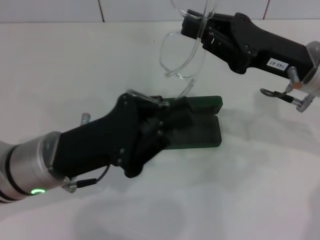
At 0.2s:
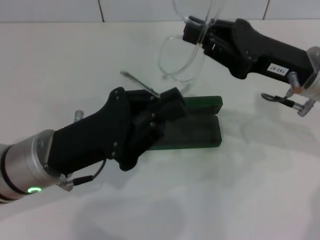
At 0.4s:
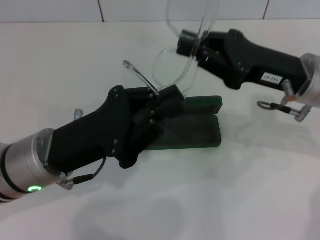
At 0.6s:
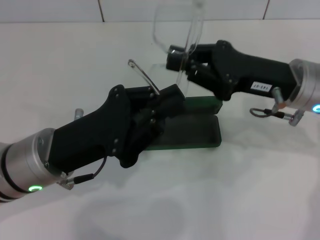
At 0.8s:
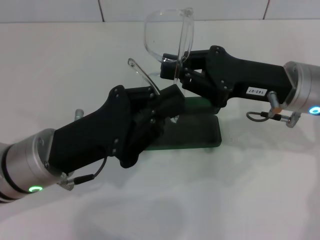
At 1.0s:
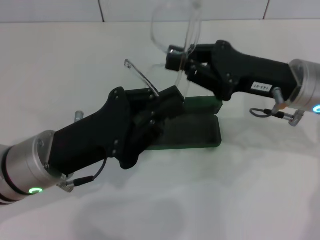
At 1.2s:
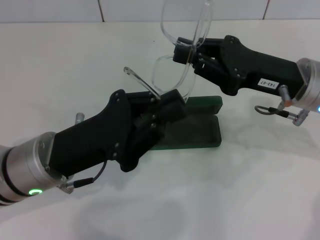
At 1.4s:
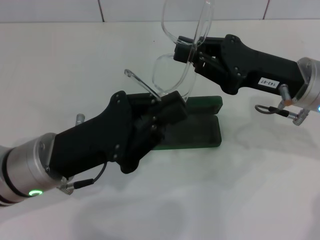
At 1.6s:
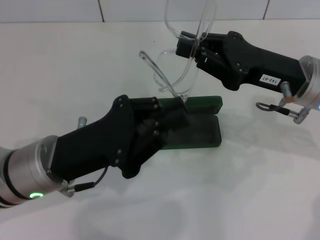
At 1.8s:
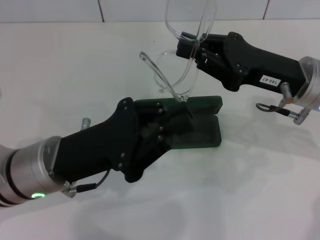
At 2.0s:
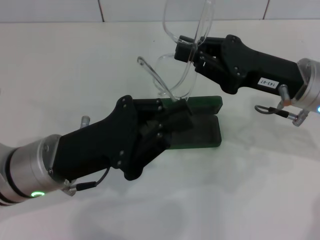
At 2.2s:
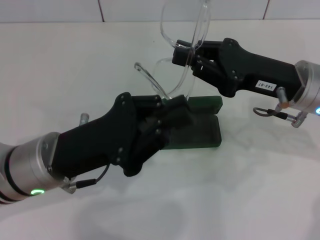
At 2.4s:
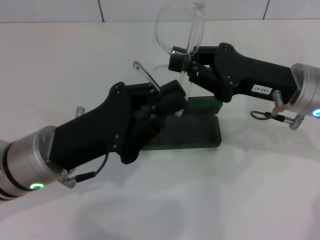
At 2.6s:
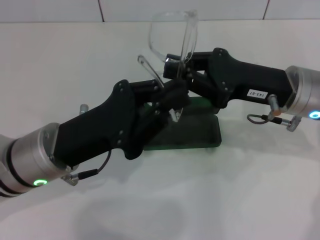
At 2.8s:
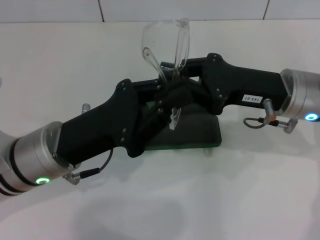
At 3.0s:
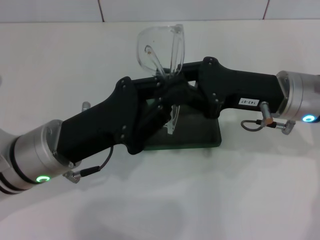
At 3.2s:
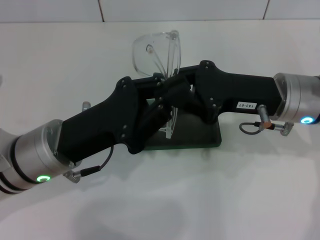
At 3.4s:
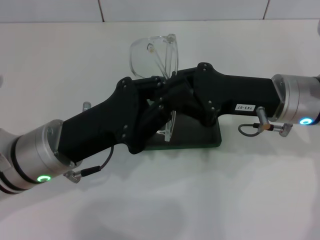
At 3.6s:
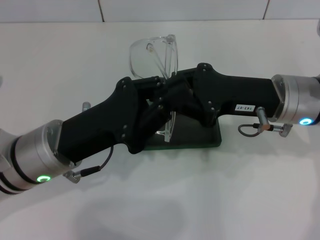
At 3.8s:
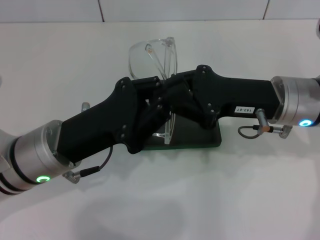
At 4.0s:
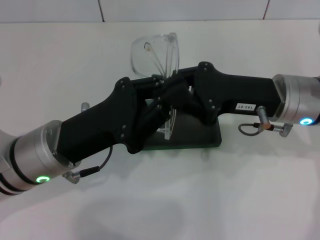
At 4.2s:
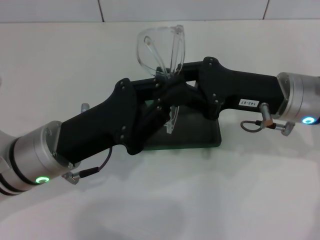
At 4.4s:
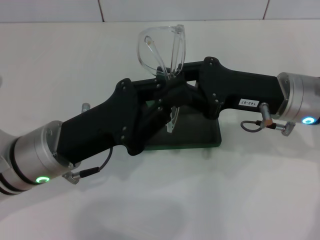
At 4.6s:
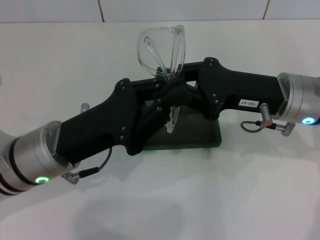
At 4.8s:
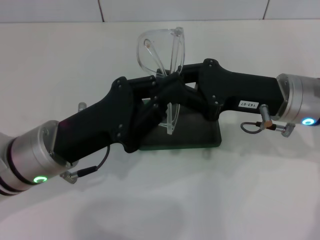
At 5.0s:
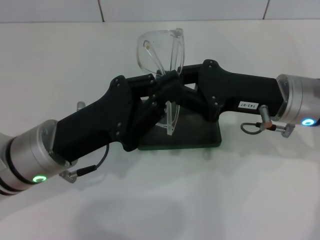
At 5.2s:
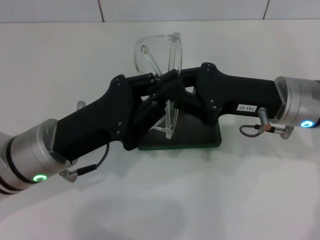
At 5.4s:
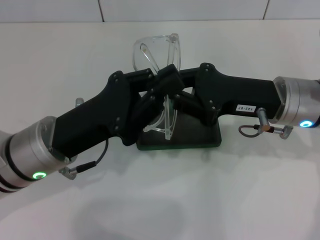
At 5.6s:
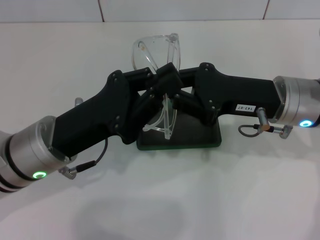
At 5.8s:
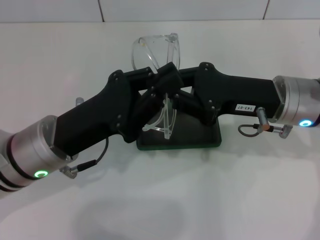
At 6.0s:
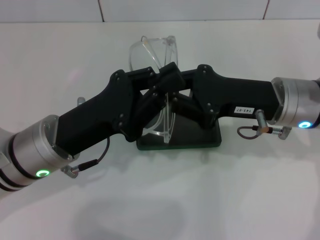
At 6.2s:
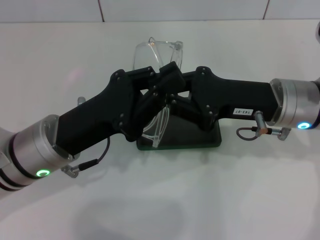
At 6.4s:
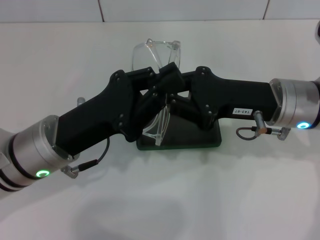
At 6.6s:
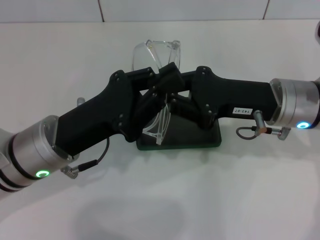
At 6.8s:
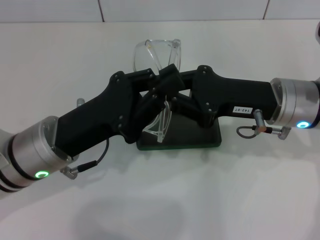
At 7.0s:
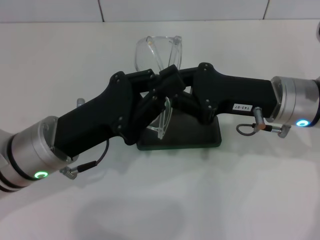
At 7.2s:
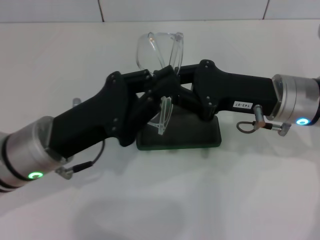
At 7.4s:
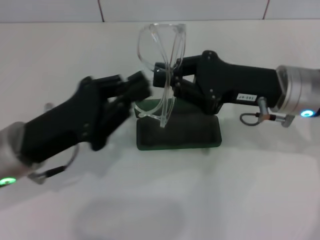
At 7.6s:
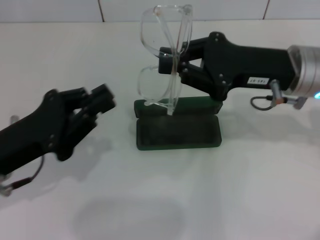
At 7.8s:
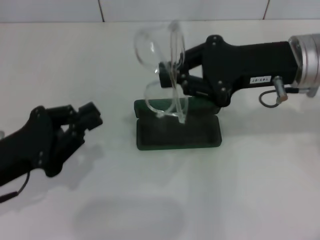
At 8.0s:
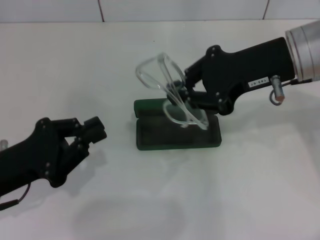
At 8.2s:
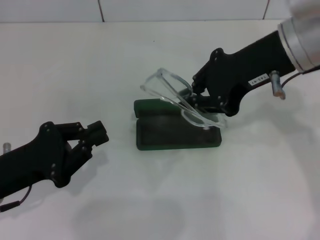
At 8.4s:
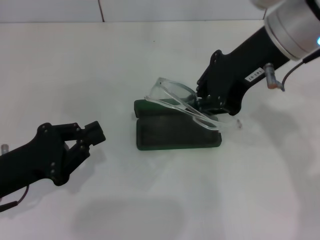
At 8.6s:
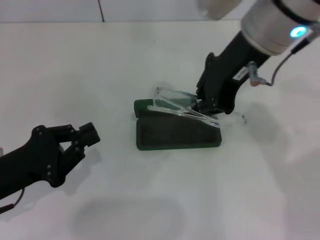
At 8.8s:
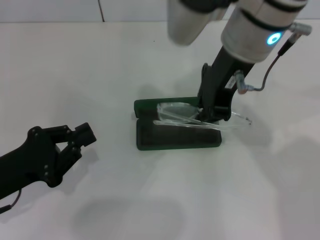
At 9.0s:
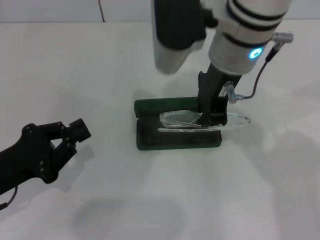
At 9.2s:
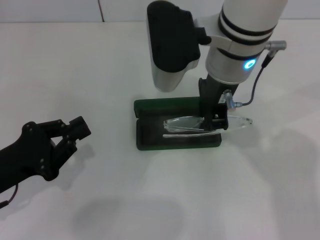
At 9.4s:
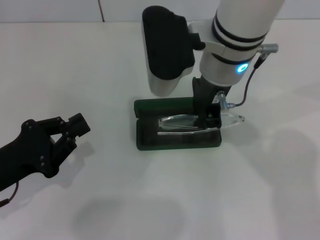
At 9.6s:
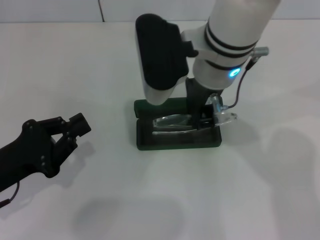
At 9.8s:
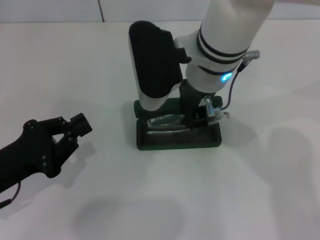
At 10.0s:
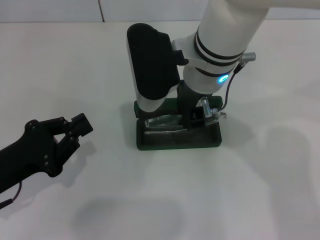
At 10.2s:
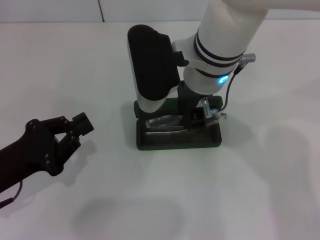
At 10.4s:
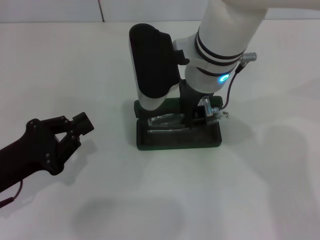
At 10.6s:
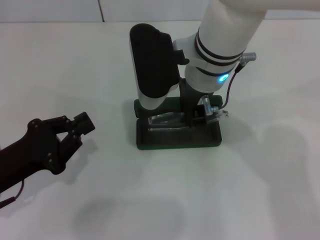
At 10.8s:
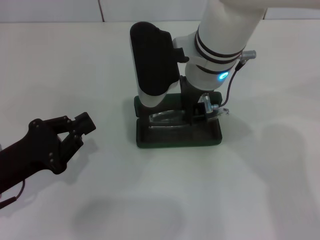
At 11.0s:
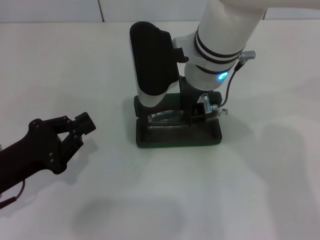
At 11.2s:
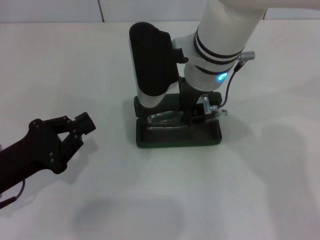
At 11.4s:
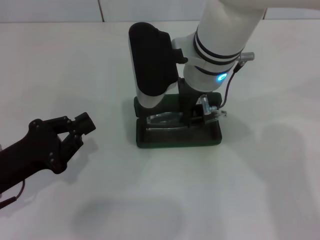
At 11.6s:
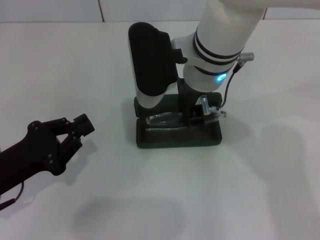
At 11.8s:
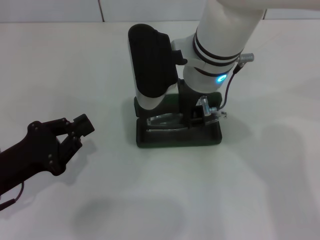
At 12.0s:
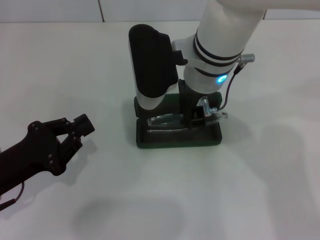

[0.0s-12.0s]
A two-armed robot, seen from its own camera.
Step, 0.0s to 4.2s: Fold the frame with your left hand.
0.0s to 1.6s: The grippers make only small movements.
3.0s to 6.0s: Both grippers stay put.
6.0s to 7.6s: The left gripper shifts about 10 cm to the left.
7.6s to 9.0s: The left gripper moves about 5 cm; the right gripper goes approximately 15 cm to the left and upward.
9.0s to 10.4s: The right gripper ends up roughly 5 cm from where it was.
10.4s to 12.0s: Neither gripper changes place.

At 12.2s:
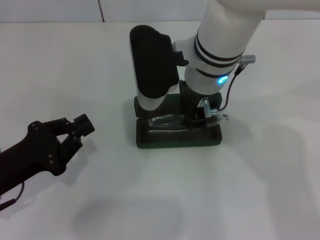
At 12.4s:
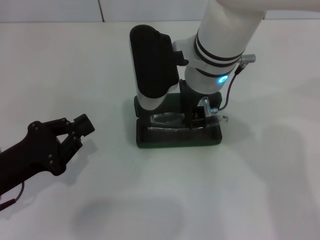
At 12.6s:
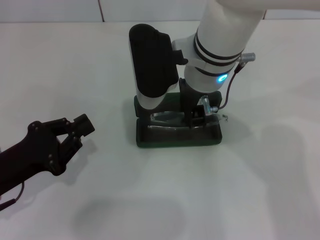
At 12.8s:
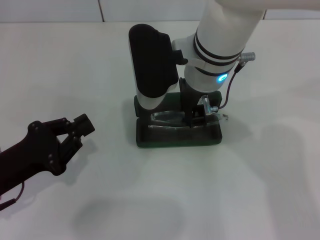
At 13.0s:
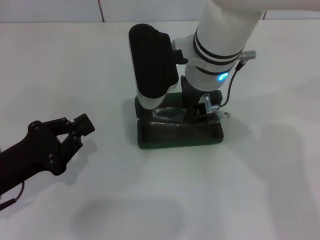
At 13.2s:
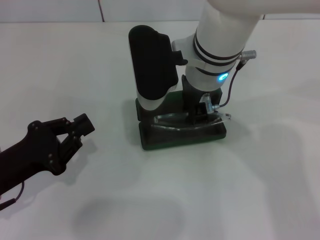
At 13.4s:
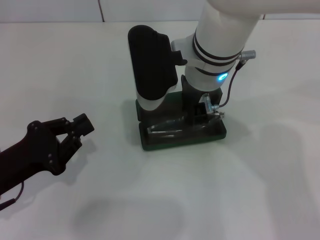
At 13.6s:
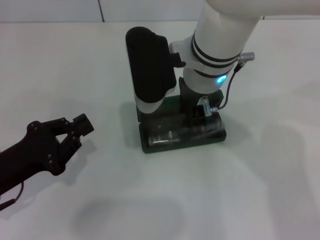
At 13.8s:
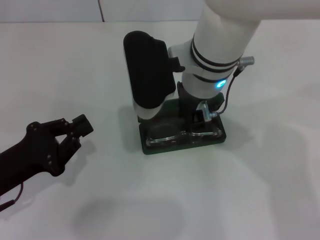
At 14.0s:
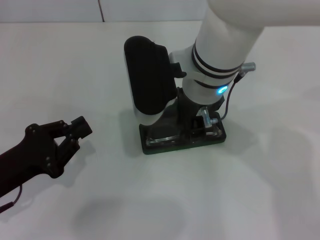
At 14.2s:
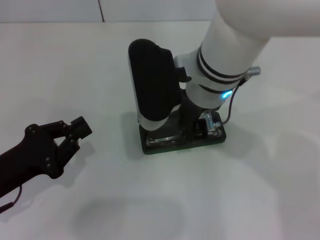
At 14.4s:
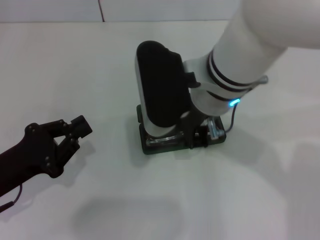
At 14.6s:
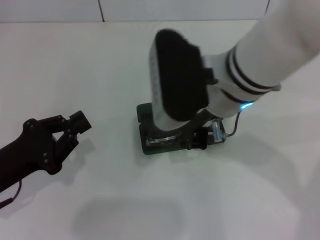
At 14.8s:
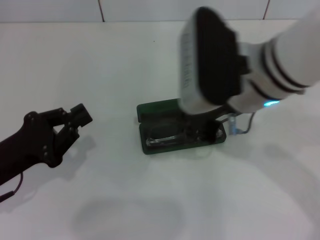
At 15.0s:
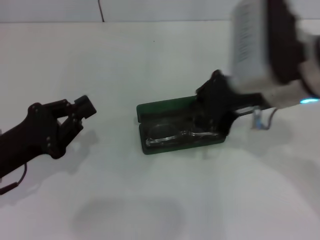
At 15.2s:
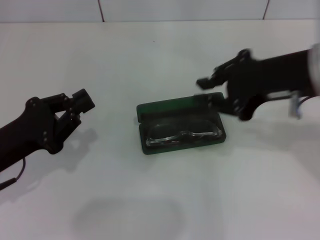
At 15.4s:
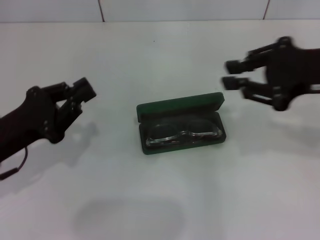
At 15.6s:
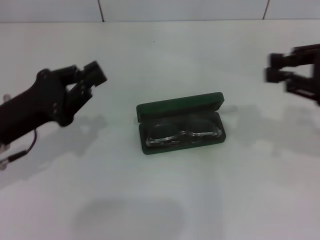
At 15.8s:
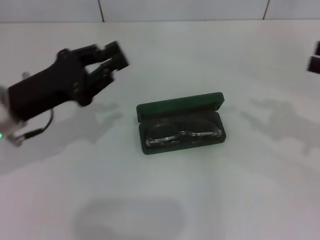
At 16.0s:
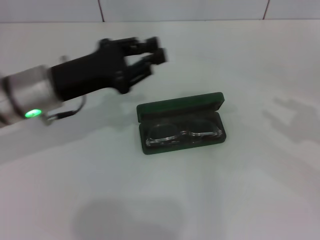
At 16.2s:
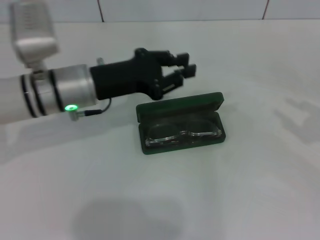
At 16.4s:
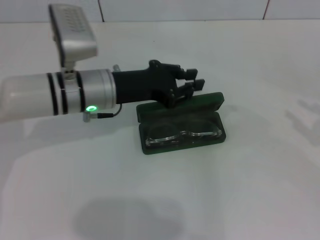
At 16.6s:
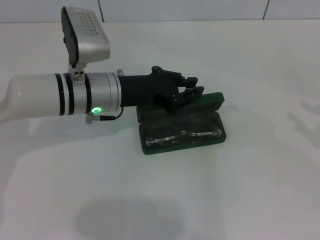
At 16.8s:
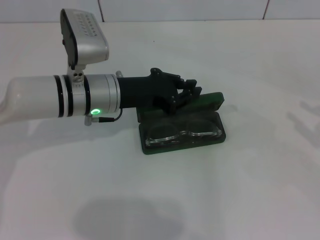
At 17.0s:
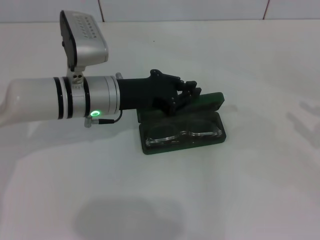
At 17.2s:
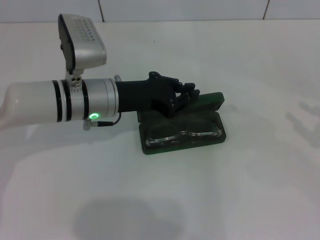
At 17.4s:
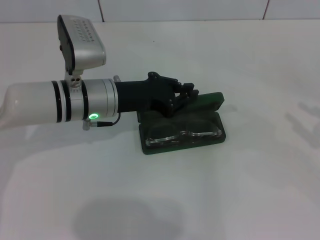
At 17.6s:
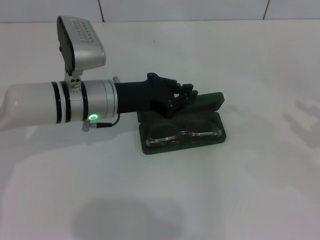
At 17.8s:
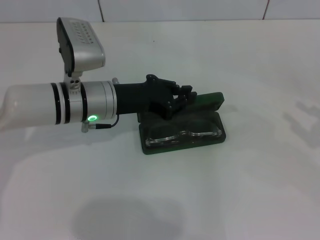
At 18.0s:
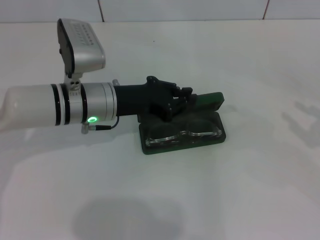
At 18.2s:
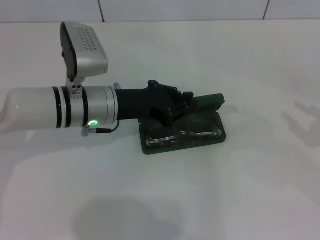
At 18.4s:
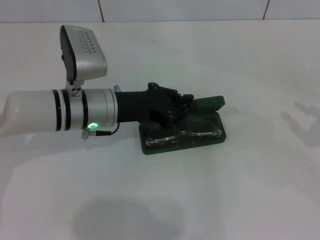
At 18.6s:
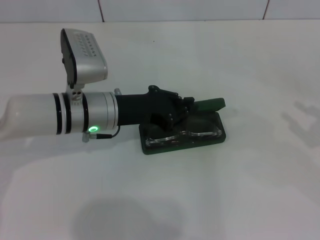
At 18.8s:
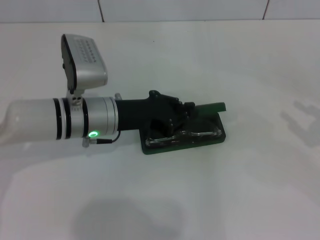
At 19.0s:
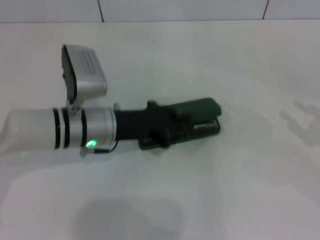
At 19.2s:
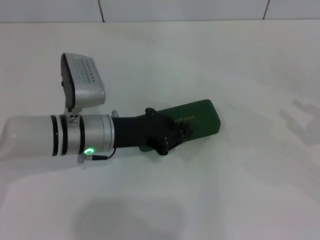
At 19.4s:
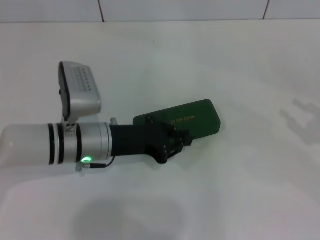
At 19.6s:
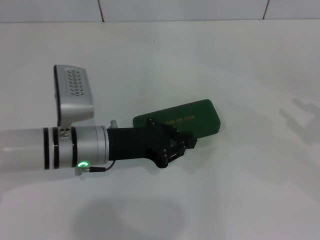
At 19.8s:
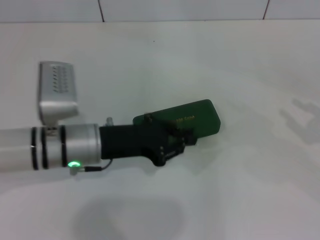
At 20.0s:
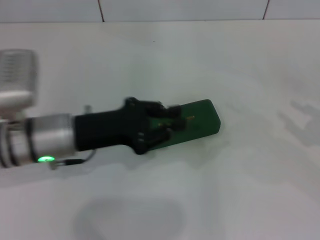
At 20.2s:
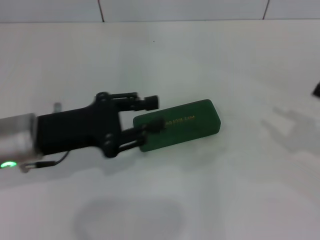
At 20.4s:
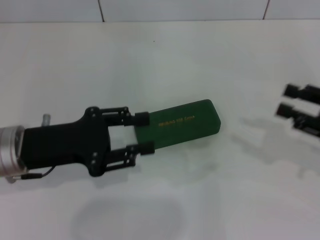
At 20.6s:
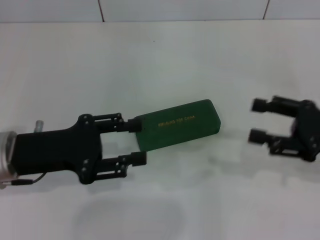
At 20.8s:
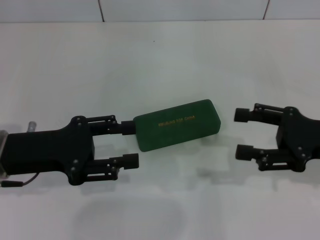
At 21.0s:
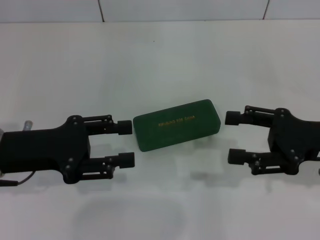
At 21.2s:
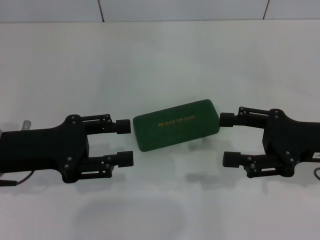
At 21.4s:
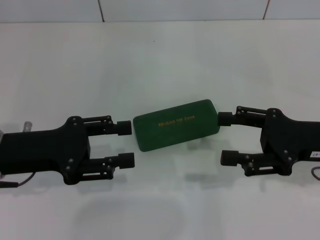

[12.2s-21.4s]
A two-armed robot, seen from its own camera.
Step, 14.2s to 19.4s: Close the glasses case with your left hand.
12.2s to 13.8s: The grippers stay close to where they were, moving slightly.
13.8s to 15.2s: The right gripper moves to the right, approximately 15 cm.
15.2s to 16.8s: The left gripper moves to the right and forward, roughly 20 cm. Meanwhile the right gripper heads to the right and downward, covering about 25 cm.
16.8s to 18.4s: There are only small adjustments of the grippers.
18.4s to 19.8s: The left gripper goes some 5 cm backward.
19.8s to 21.4s: Both grippers move to the left, about 10 cm. The right gripper opens. The left gripper opens its fingers.

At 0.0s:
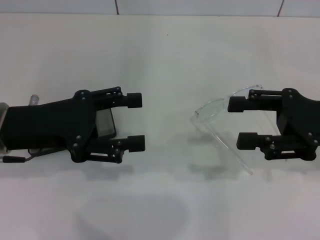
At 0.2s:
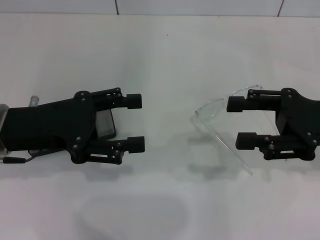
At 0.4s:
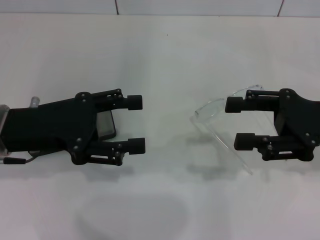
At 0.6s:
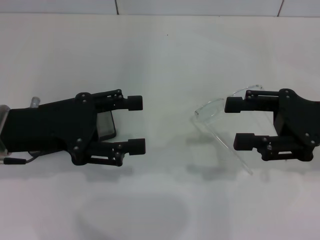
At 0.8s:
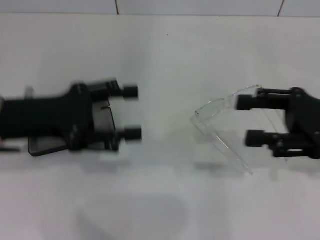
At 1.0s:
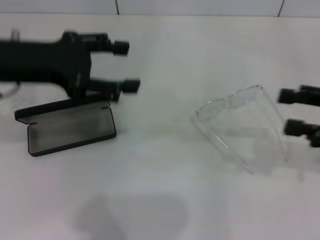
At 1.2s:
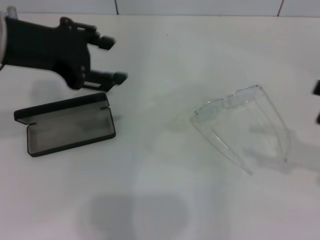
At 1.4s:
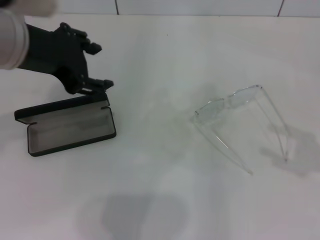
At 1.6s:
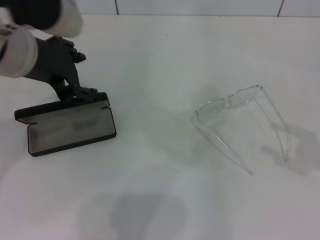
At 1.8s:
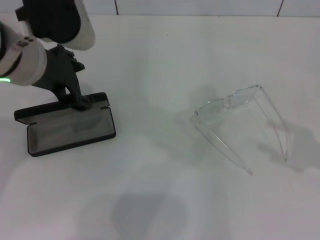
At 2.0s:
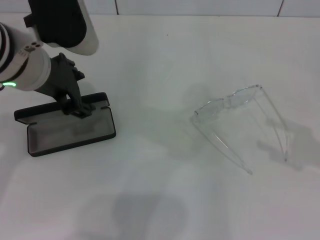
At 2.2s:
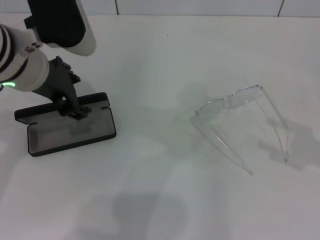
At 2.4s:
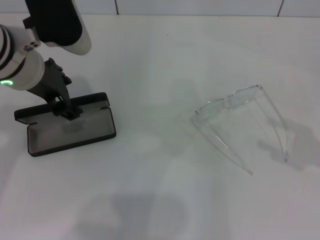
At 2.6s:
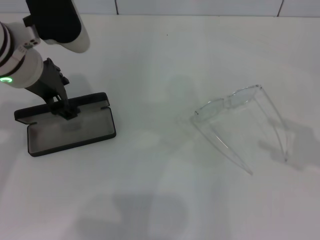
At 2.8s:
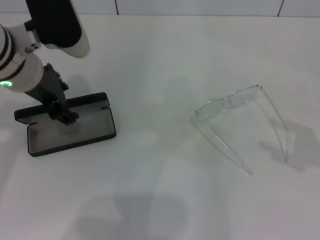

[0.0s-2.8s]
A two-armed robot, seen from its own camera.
0.0s to 1.4s: The right gripper shifts roughly 15 cm to the right and backward. The left gripper heads upward and to the right, covering approximately 15 cm.
1.4s to 2.8s: The left gripper is displaced downward by about 5 cm.
